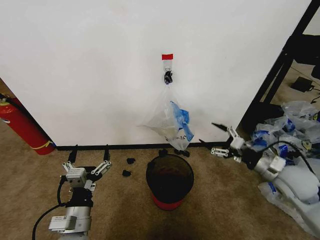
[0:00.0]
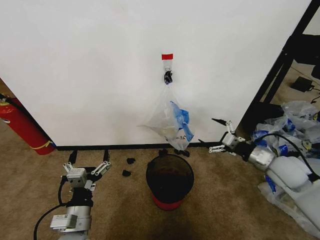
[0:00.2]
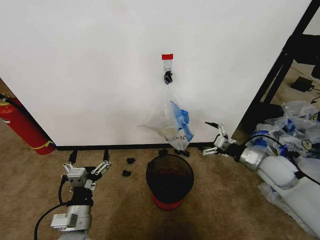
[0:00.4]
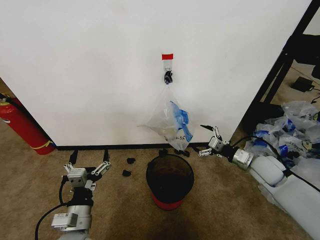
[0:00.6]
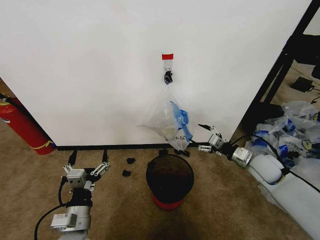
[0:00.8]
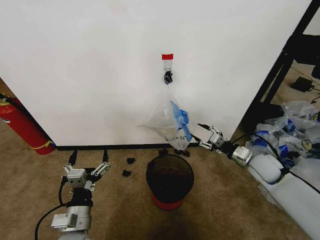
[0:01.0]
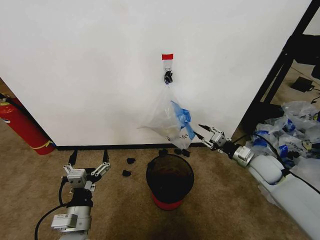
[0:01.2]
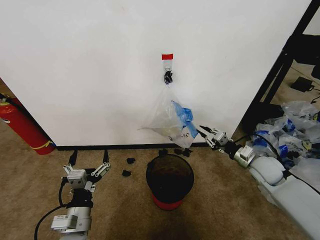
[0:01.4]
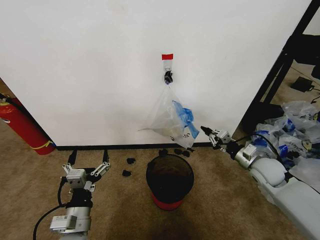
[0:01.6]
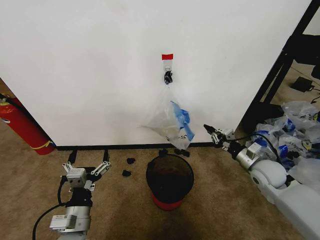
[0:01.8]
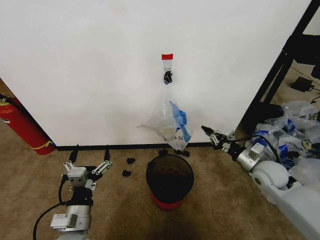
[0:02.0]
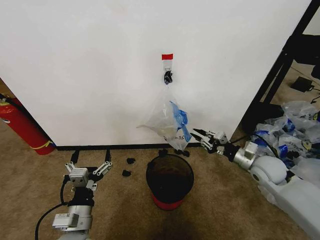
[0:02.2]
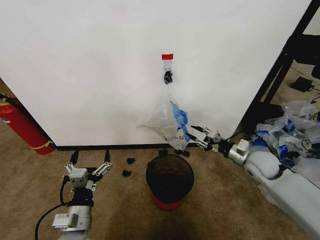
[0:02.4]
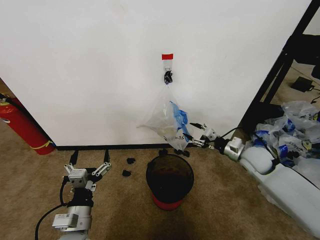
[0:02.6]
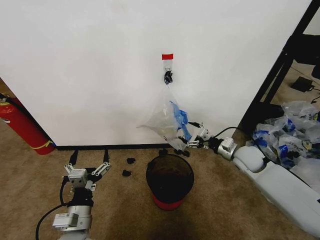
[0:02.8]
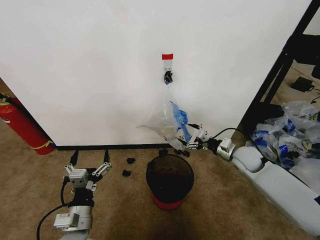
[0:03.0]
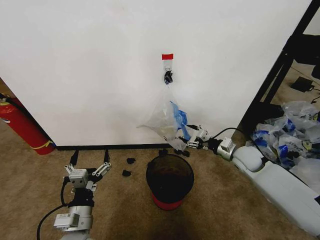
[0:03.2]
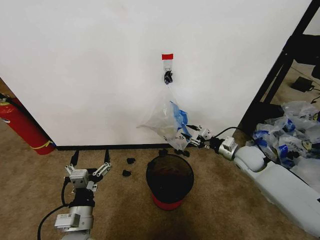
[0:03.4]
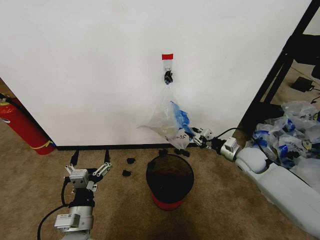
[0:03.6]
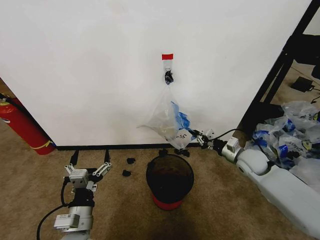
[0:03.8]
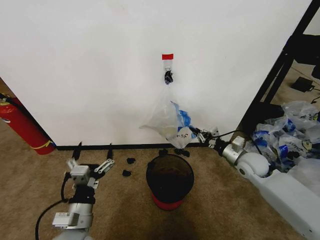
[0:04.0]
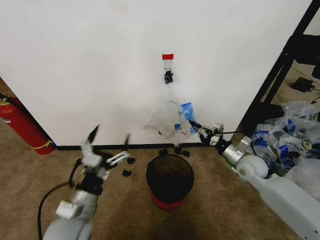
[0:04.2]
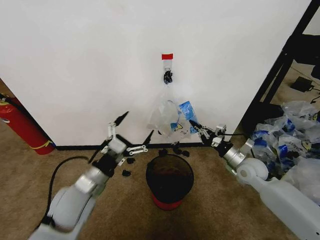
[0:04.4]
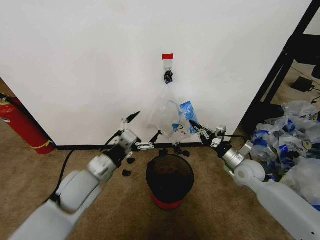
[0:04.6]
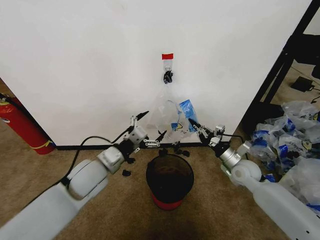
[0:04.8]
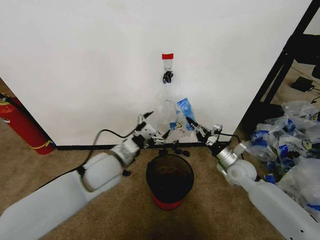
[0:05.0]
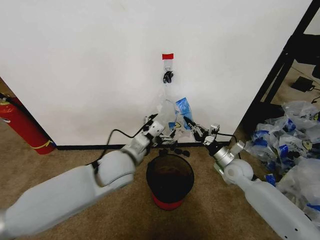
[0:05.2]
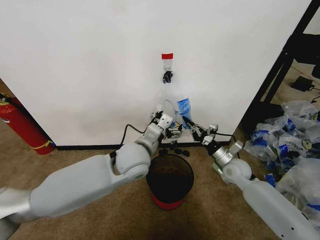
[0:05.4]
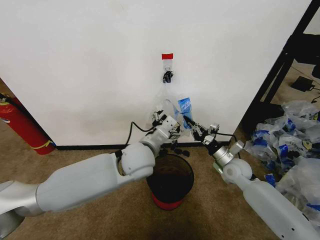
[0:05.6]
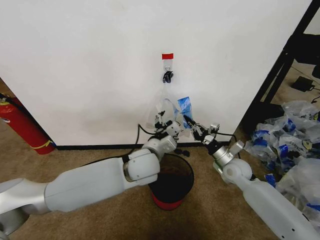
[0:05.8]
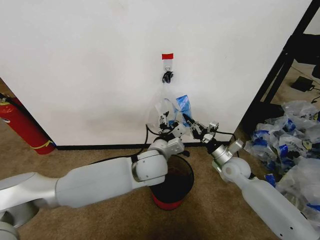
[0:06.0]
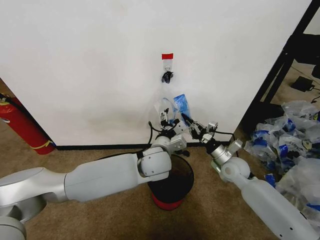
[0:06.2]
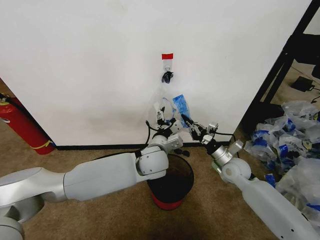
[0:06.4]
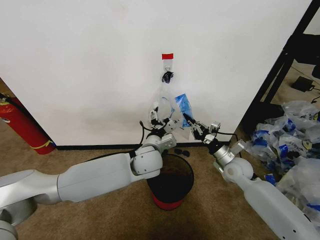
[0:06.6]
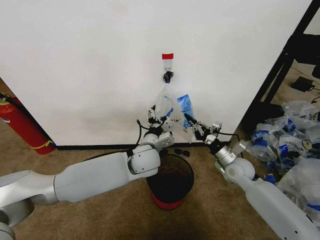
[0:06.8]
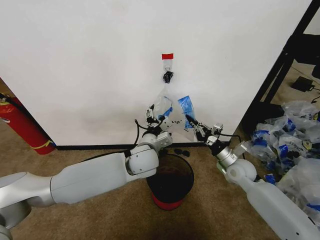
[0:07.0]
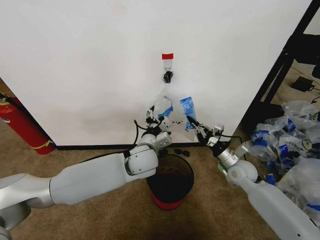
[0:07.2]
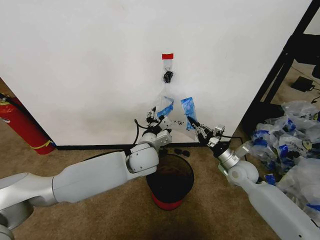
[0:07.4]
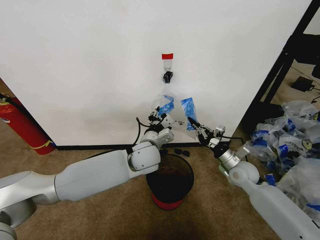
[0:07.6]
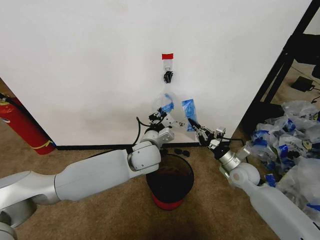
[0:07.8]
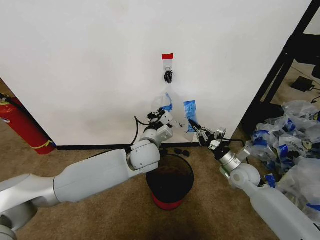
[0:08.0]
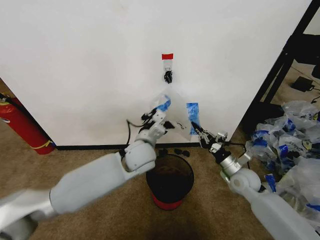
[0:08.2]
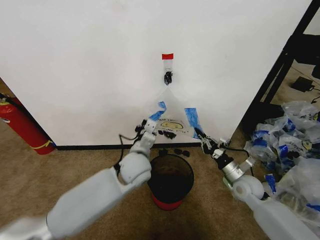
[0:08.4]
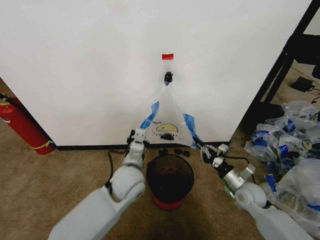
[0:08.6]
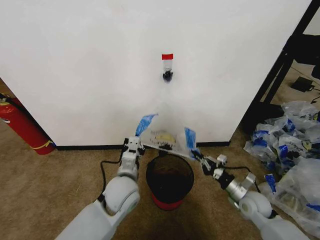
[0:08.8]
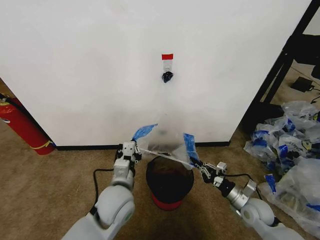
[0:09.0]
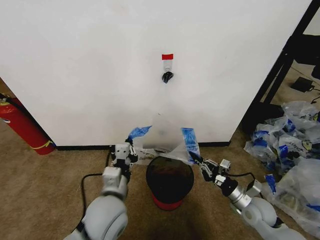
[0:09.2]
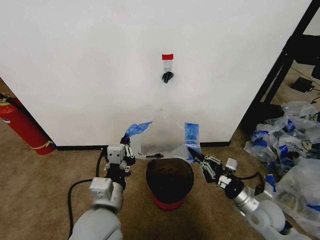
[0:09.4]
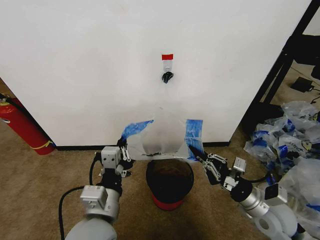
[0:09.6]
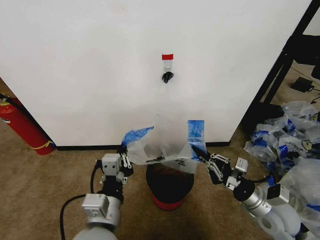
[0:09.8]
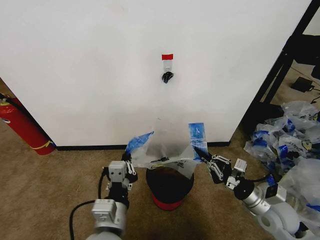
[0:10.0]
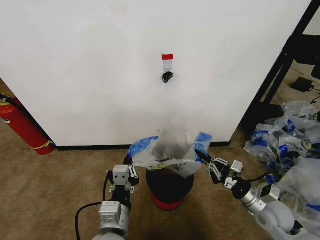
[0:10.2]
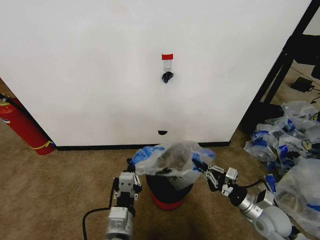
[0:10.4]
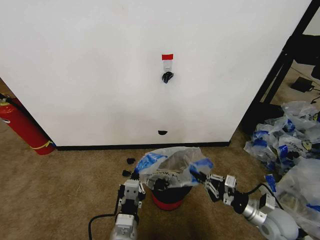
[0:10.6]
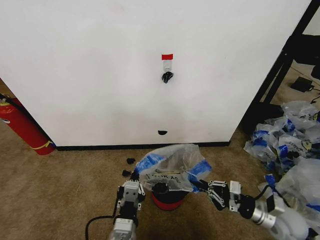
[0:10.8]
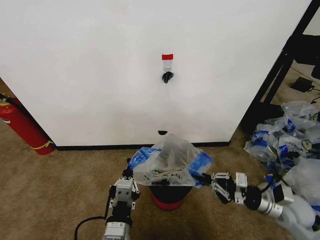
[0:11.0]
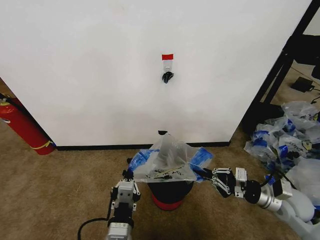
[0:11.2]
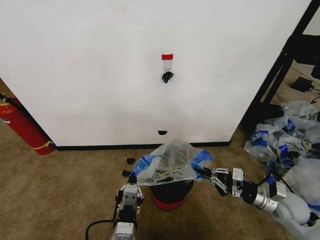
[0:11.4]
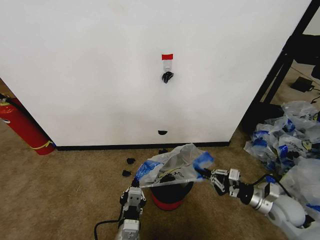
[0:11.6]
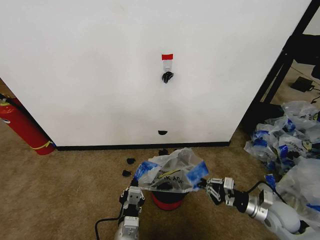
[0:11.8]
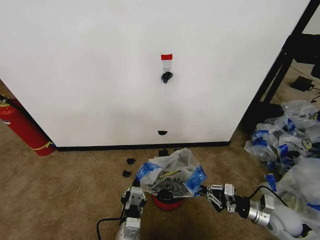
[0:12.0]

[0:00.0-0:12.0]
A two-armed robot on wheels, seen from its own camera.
Task of the whole recording: Pick up the garbage bag from the wall and place it over the trash bin.
0:00.0 to 0:01.6: The right gripper shifts about 10 cm forward and downward, and closes up.
0:01.6 to 0:03.0: The right gripper shifts about 5 cm forward, and opens.
0:03.0 to 0:04.4: The left gripper goes roughly 10 cm forward and upward, while the right gripper closes.
0:04.4 to 0:06.0: The right gripper moves roughly 5 cm. The left gripper moves to the right and forward, some 20 cm.
0:06.0 to 0:07.6: The left gripper closes its fingers.
0:07.6 to 0:09.0: The right gripper heads backward and downward, covering roughly 15 cm; the left gripper is displaced backward and to the left by roughly 15 cm, and closes.
0:09.0 to 0:10.4: The left gripper is displaced backward by some 15 cm.
0:10.4 to 0:12.0: The left gripper moves downward, about 10 cm.

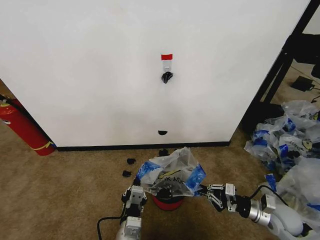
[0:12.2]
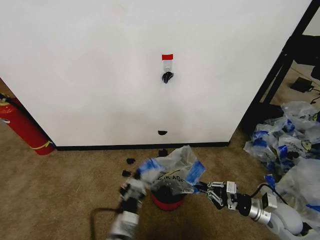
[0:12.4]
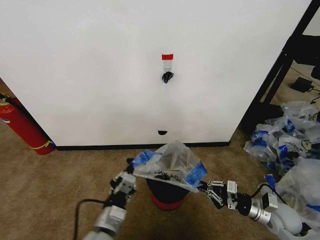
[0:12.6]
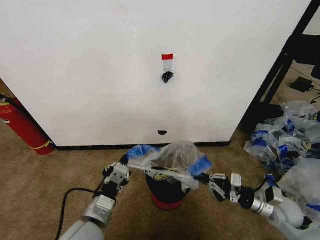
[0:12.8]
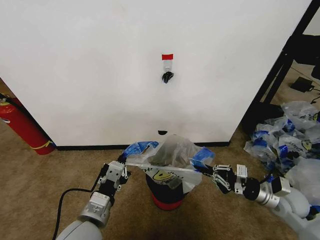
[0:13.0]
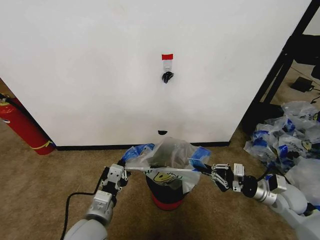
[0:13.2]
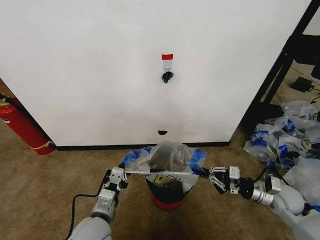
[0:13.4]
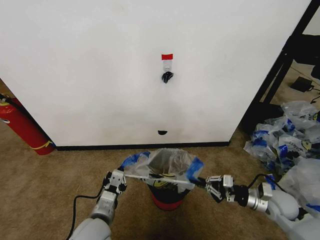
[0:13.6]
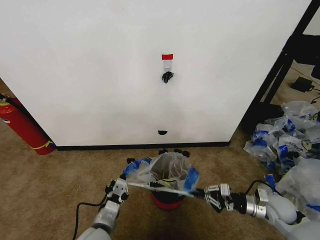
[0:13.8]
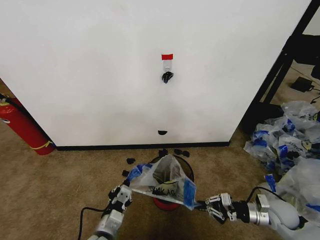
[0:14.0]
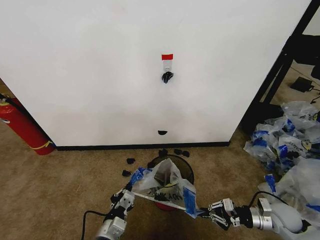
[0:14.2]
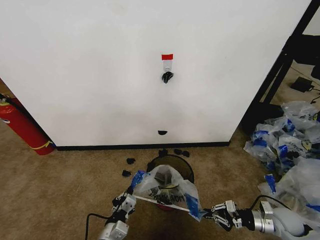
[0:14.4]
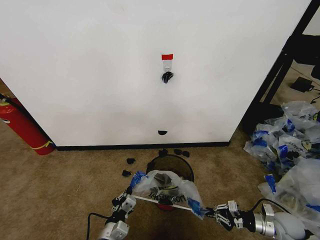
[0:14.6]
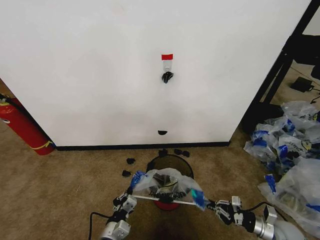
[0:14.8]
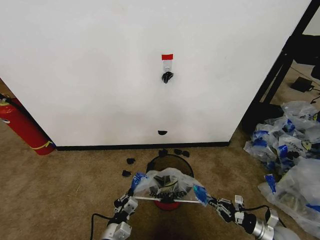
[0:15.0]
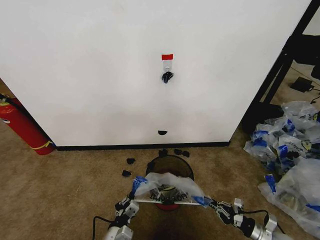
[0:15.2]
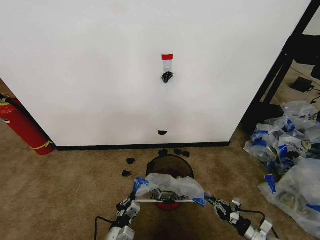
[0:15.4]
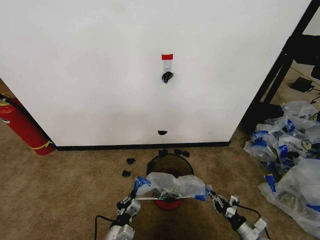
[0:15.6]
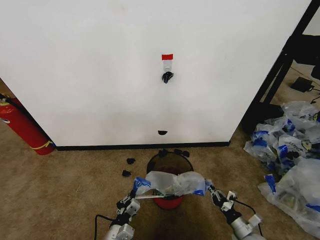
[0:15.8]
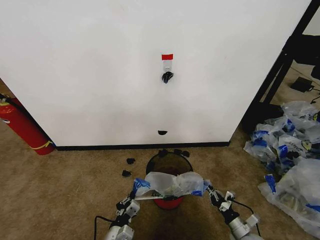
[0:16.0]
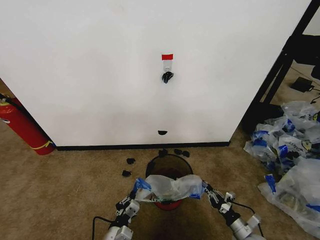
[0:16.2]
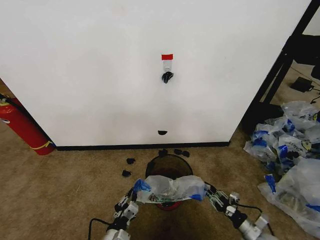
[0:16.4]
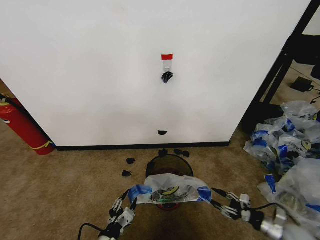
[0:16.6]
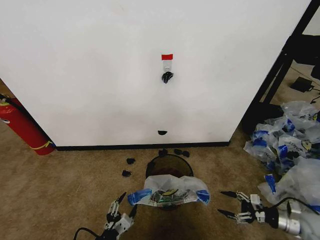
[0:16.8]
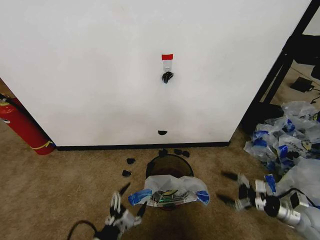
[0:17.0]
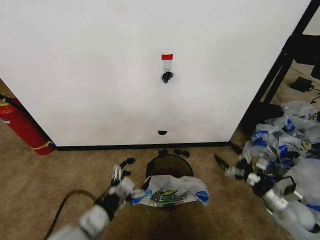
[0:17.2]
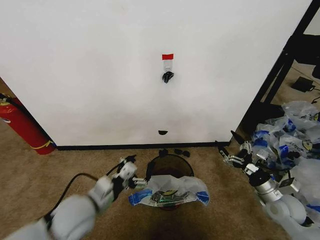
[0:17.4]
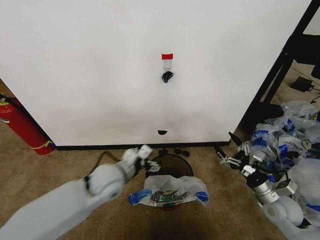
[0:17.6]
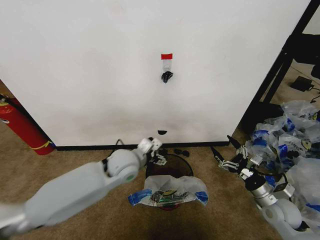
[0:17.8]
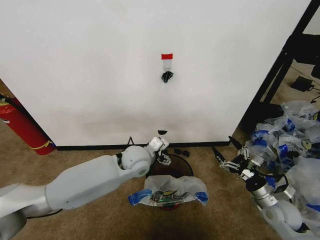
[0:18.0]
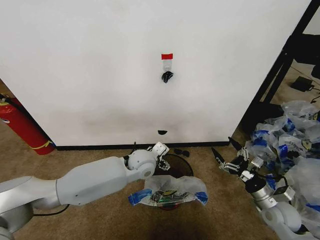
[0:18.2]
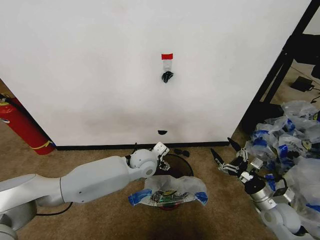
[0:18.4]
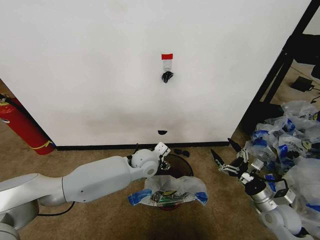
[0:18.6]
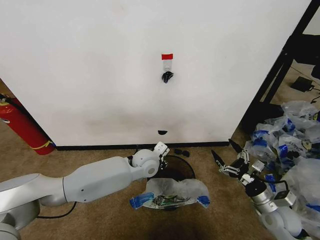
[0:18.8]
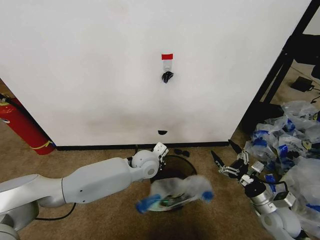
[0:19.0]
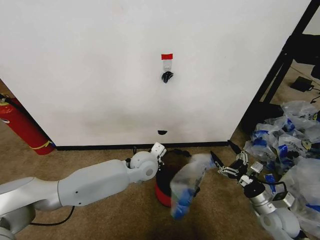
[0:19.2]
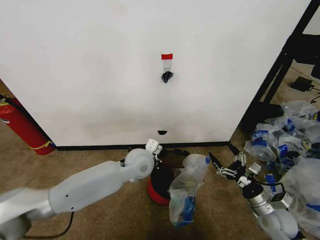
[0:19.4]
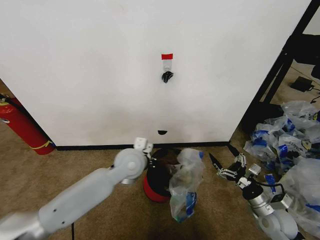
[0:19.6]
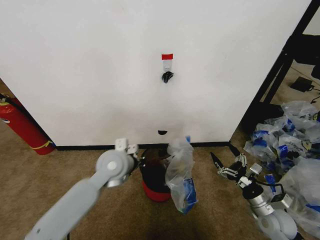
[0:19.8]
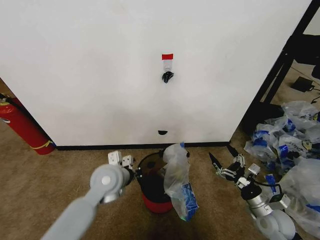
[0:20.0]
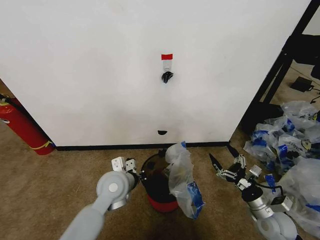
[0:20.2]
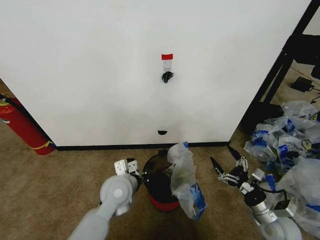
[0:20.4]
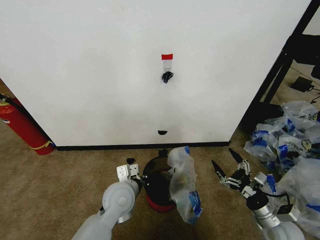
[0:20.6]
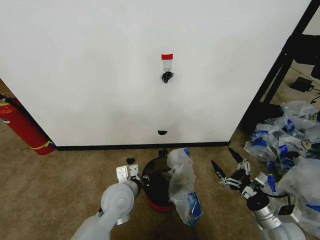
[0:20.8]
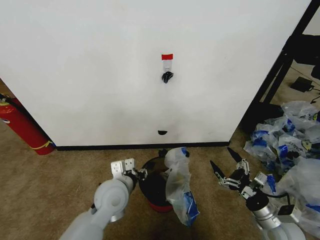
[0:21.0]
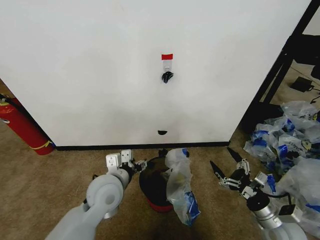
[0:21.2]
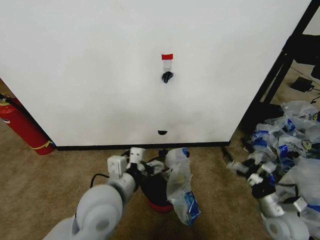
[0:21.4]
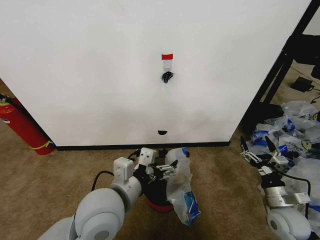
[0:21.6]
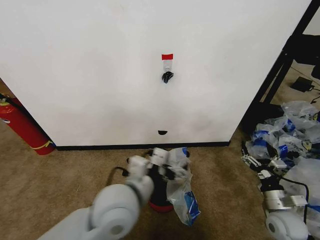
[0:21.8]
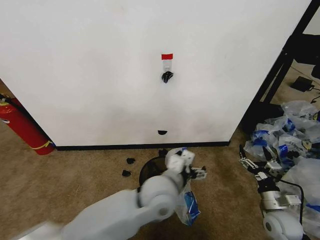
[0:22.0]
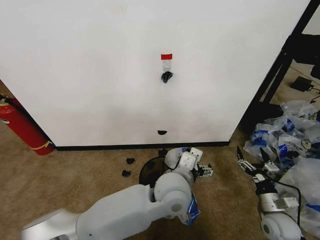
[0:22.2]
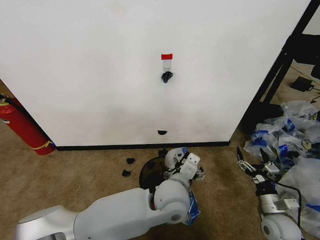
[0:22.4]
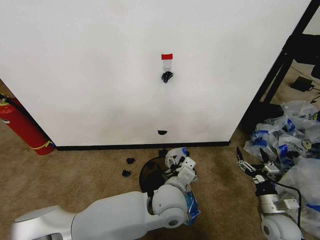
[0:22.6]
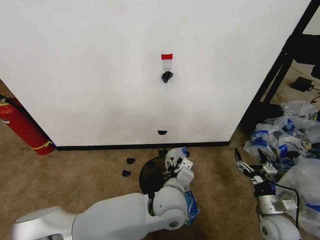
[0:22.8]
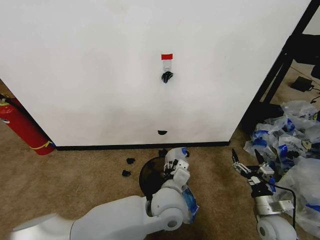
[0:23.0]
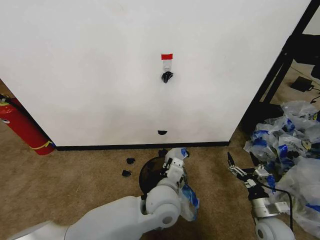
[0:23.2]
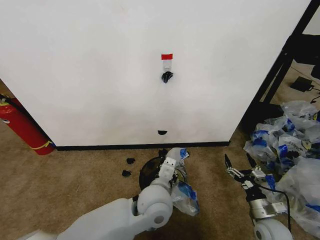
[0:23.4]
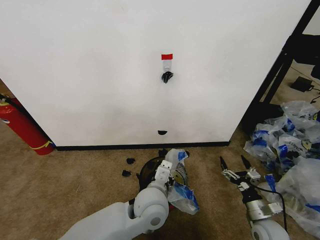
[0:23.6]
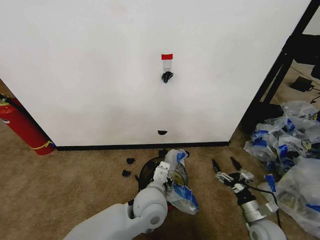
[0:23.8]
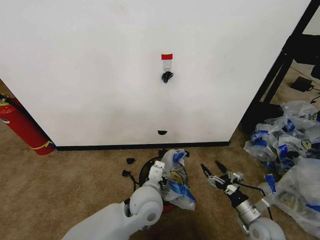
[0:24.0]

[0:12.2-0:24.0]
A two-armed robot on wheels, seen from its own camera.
Task of the whole recording: Pick up the garbage bag from the wall and place it over the trash bin.
0:12.2 to 0:13.6: The left gripper moves to the left and forward, about 10 cm, and travels upward and back again, some 10 cm each way.
0:13.6 to 0:15.2: The left gripper heads downward, covering about 10 cm. The right gripper shifts about 15 cm downward and backward.
0:15.2 to 0:16.6: The right gripper goes to the left and returns, approximately 10 cm each way, and opens; the left gripper shifts by roughly 5 cm, and opens its fingers.
0:16.6 to 0:18.2: The right gripper heads upward, to the left and forward, covering roughly 15 cm, and opens its fingers. Meanwhile the left gripper heads forward, to the right and upward, covering approximately 35 cm, and opens.
0:18.2 to 0:19.6: The left gripper shifts by roughly 5 cm, and closes its fingers.
0:19.6 to 0:21.0: The left gripper is displaced backward by approximately 10 cm, and opens up.
0:21.0 to 0:22.6: The right gripper ends up about 5 cm from where it was. Meanwhile the left gripper moves to the right, approximately 15 cm, and opens up.
0:22.6 to 0:24.0: The left gripper heads to the left, covering approximately 5 cm, and closes up.
